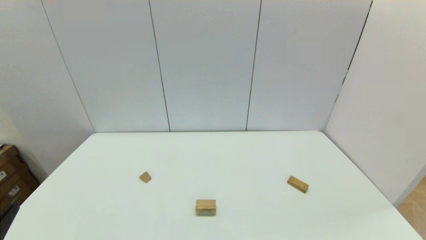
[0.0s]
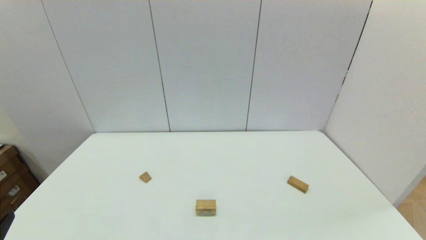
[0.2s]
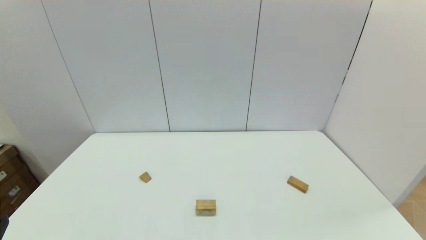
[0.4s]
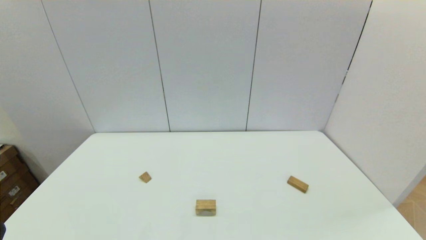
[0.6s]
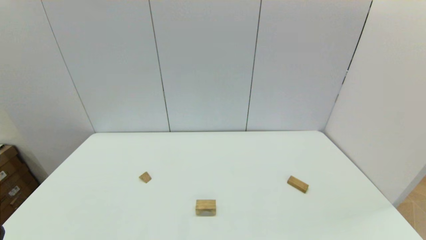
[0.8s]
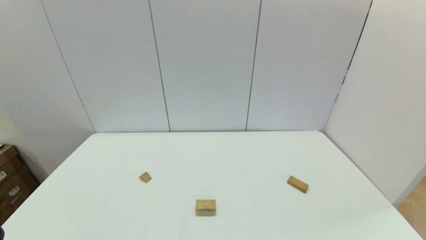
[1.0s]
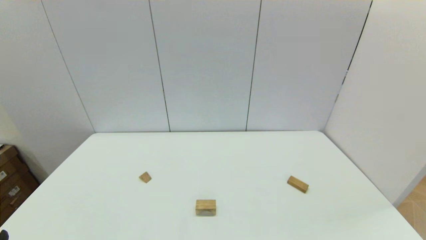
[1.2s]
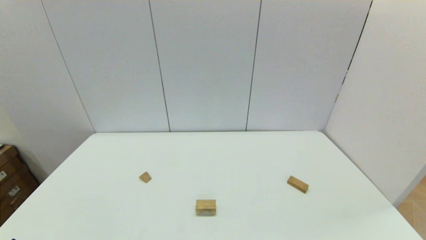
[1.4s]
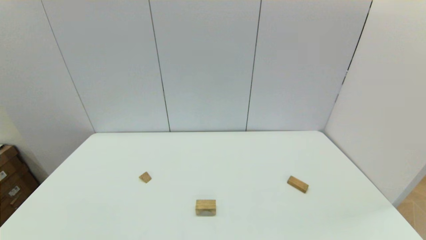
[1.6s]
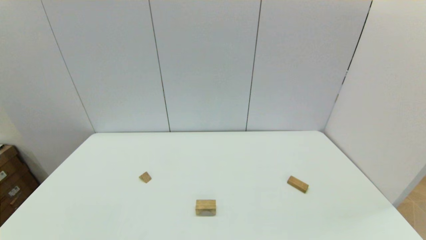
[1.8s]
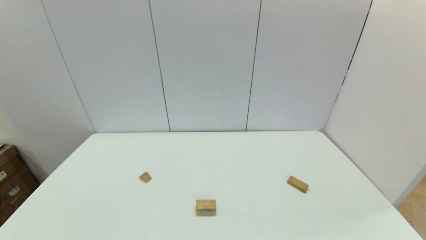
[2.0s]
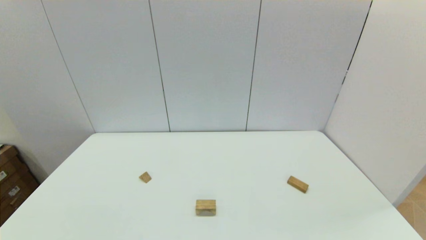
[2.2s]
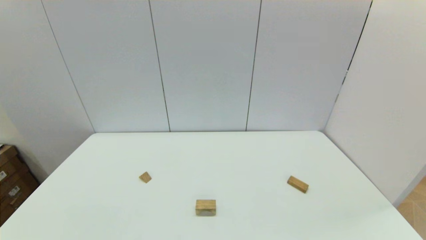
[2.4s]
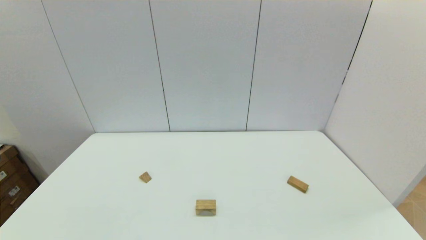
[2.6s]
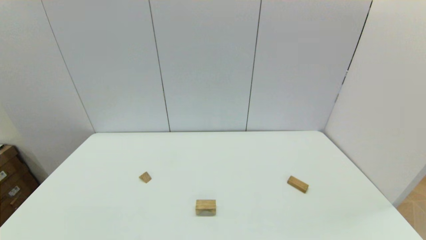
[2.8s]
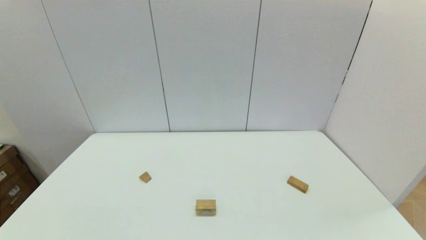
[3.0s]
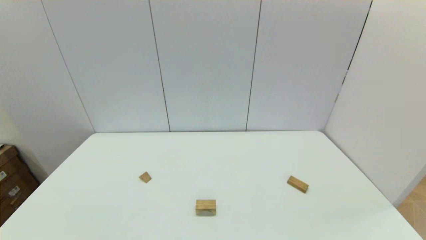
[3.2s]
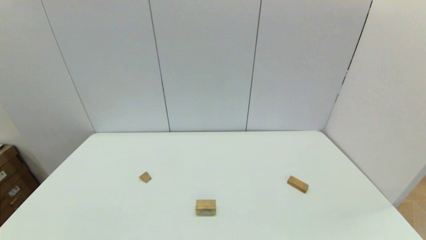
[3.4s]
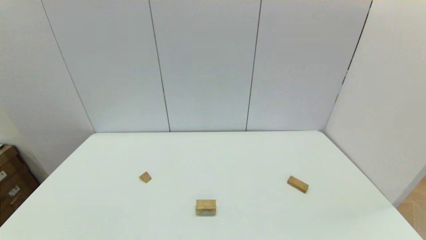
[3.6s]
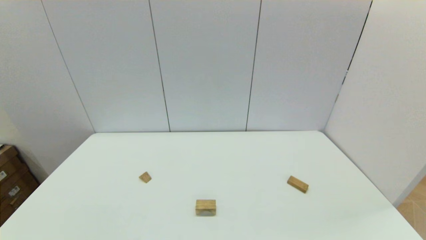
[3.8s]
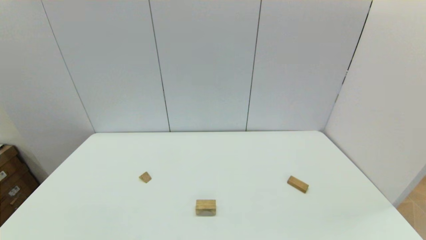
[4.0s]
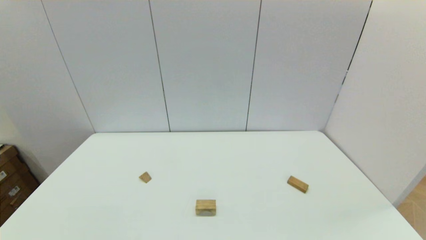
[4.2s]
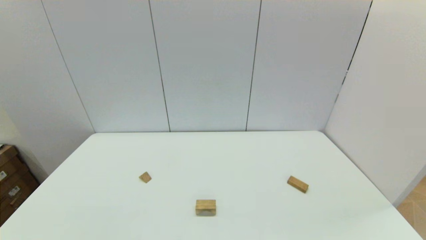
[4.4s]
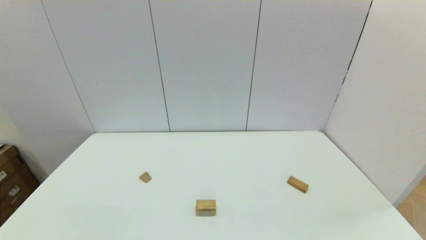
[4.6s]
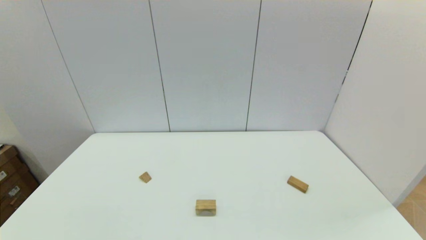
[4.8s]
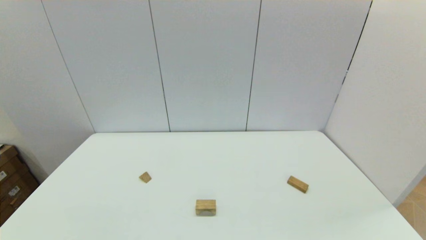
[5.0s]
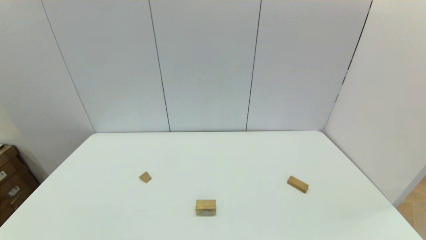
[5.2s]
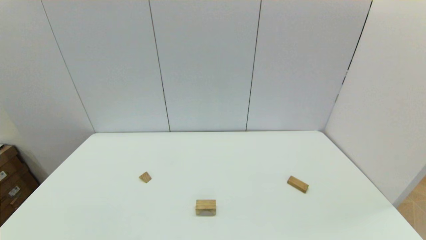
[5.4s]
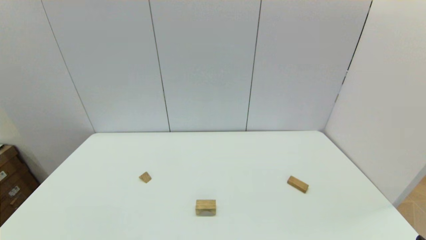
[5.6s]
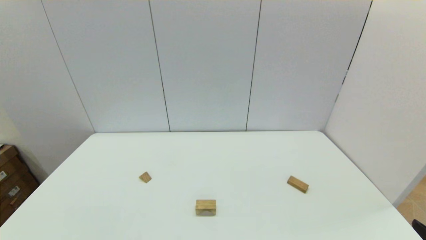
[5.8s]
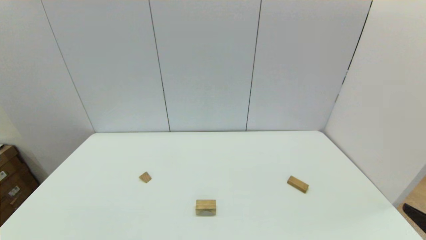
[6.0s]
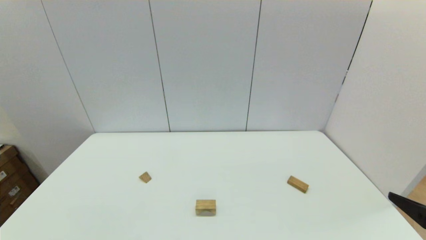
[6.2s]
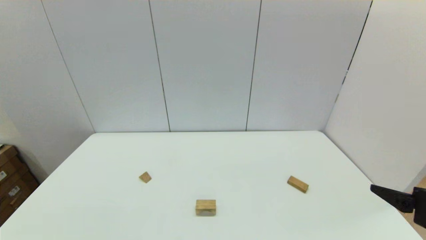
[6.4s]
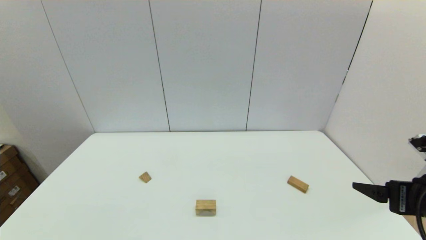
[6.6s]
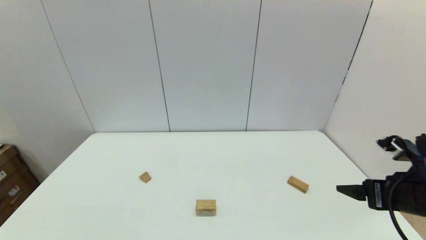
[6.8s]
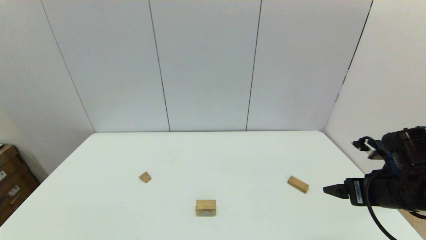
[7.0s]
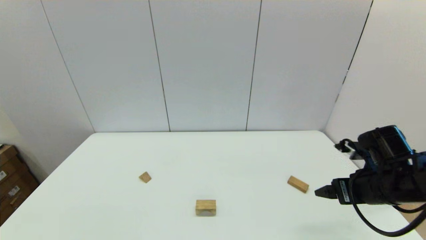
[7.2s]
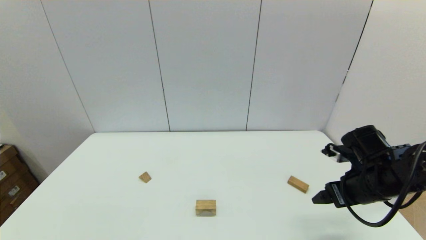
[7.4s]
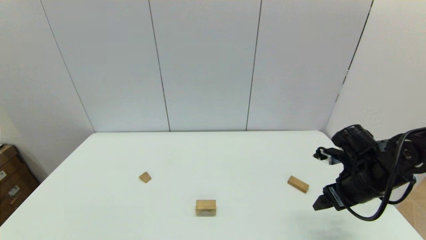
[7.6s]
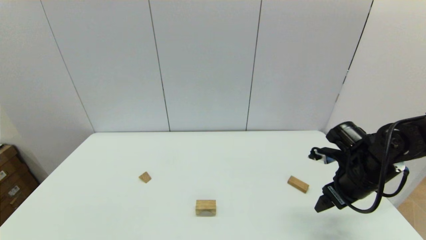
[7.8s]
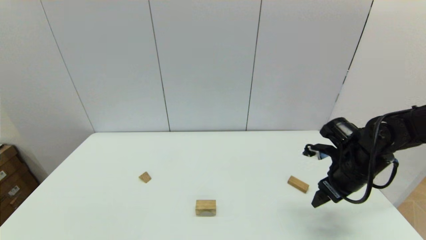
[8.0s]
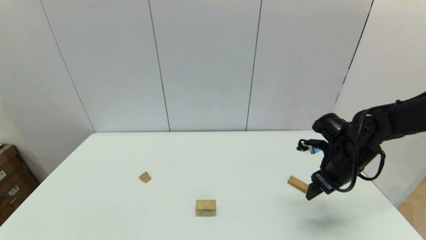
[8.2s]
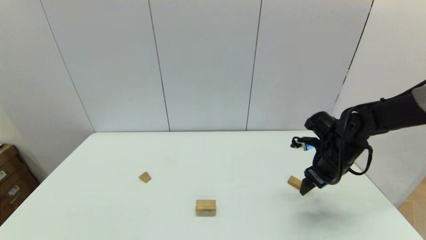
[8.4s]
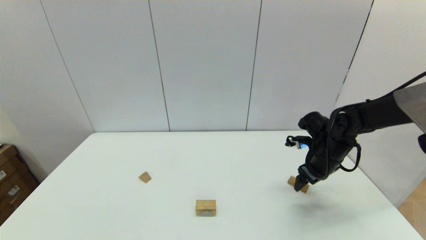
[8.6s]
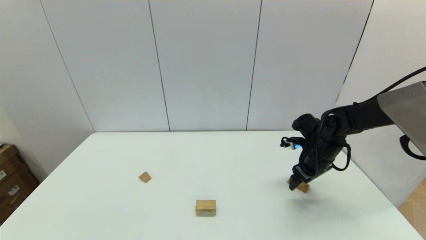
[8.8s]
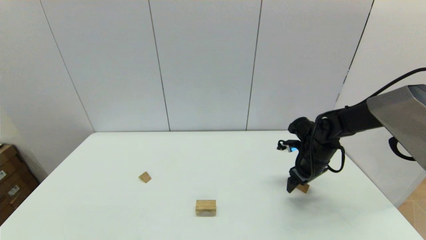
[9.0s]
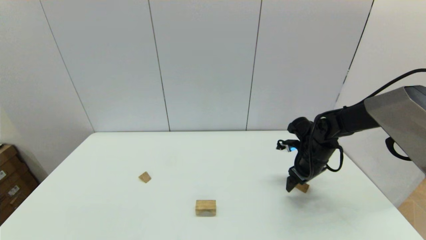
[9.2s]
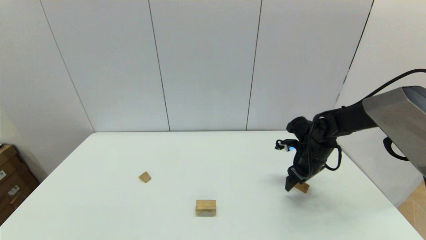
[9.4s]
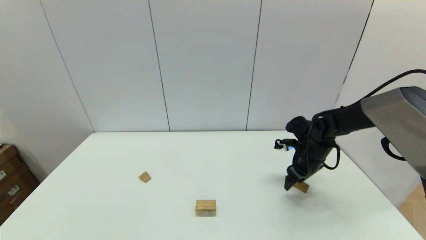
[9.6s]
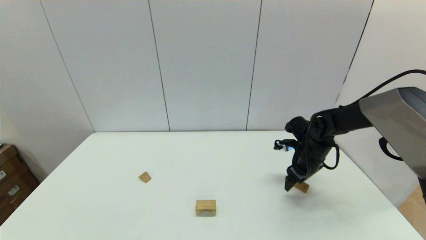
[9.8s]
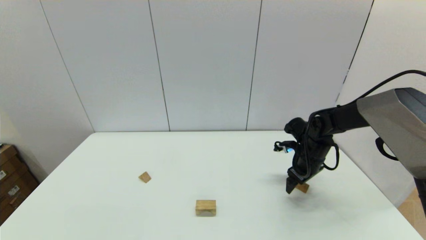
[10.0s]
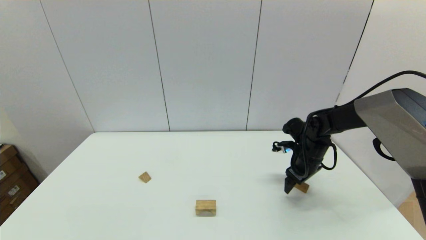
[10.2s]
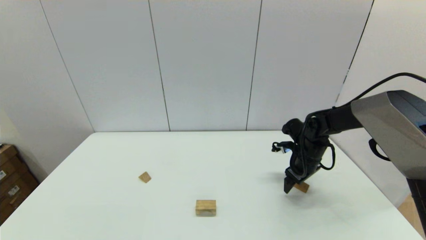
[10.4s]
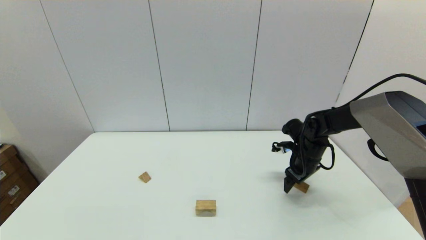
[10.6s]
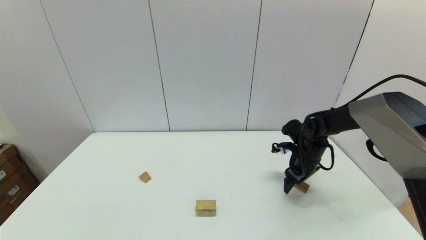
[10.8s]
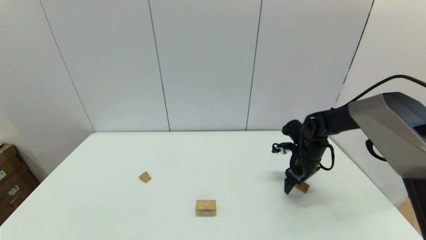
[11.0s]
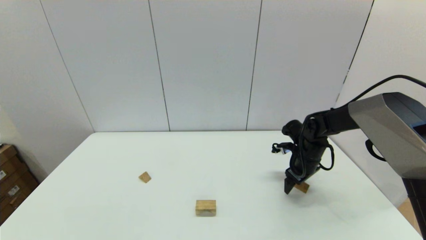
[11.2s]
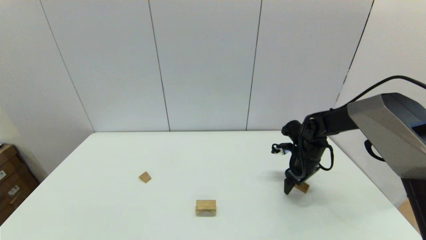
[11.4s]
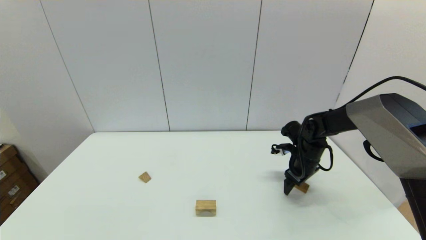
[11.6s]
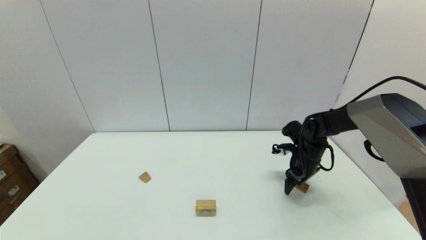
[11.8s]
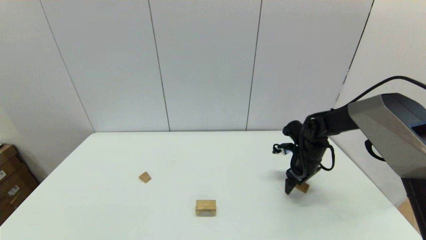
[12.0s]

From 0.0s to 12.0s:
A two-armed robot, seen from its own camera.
Task of the whole recording: place the arched building blocks in the center of the table, set up the rectangular building blocks, and then set up the triangular building blocks.
From 3.0s to 4.4s: Neither gripper changes place.
From 6.0s to 7.6s: The right gripper is displaced forward by approximately 20 cm.
From 7.6s to 9.0s: The right gripper is displaced forward by some 10 cm.
From 9.0s to 10.4s: The grippers stay close to where they were, moving slightly.
From 10.4s to 12.0s: Both grippers stay about where they are.

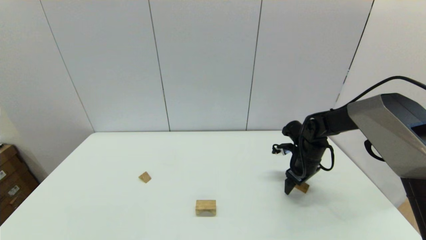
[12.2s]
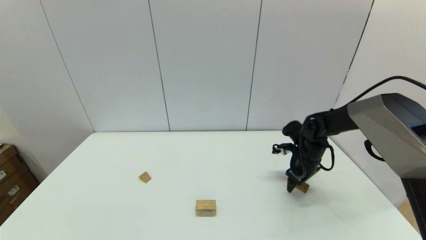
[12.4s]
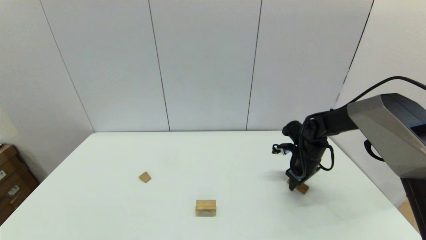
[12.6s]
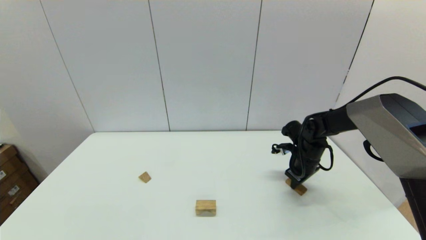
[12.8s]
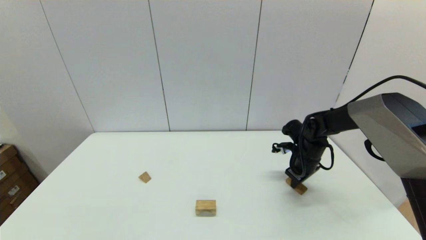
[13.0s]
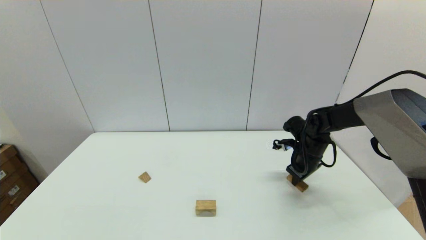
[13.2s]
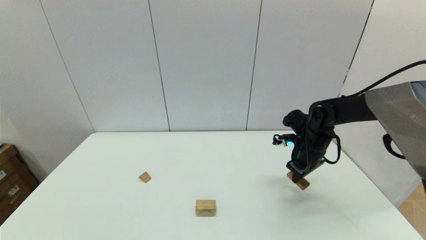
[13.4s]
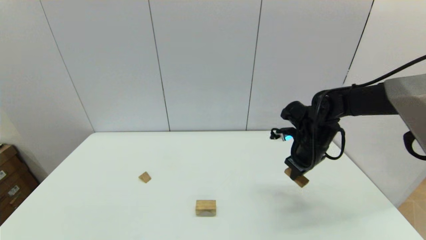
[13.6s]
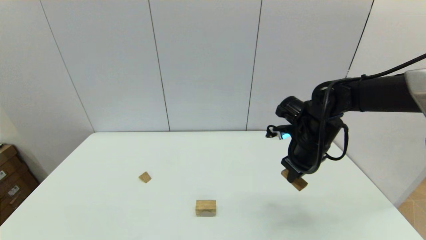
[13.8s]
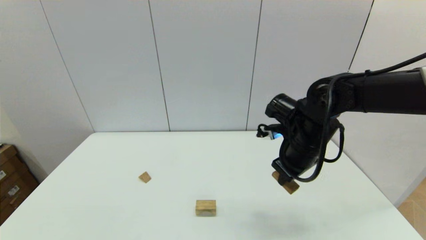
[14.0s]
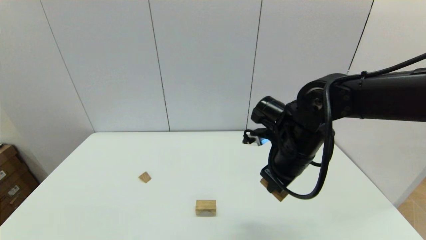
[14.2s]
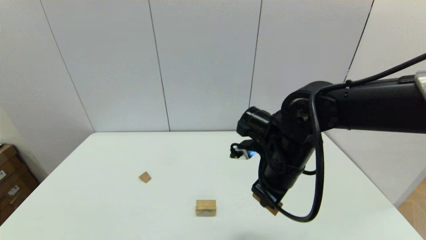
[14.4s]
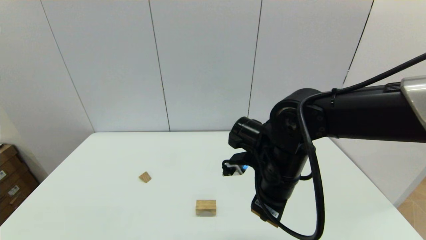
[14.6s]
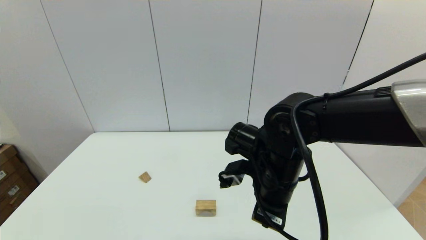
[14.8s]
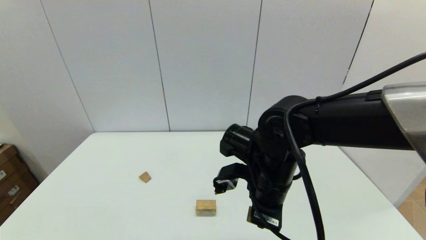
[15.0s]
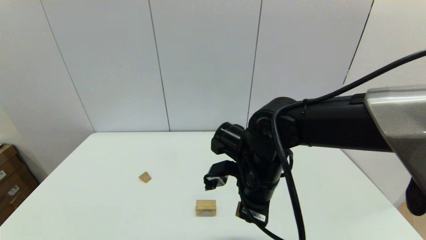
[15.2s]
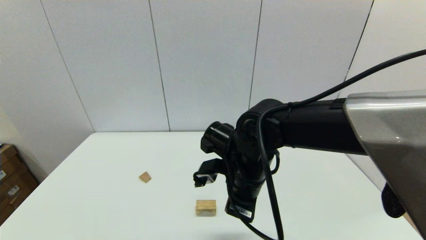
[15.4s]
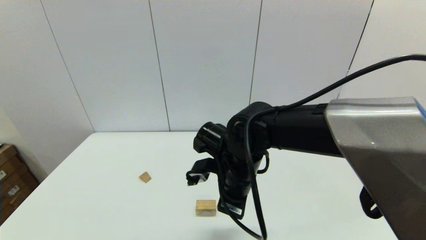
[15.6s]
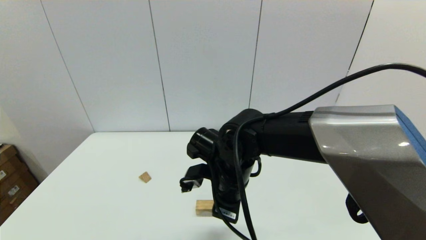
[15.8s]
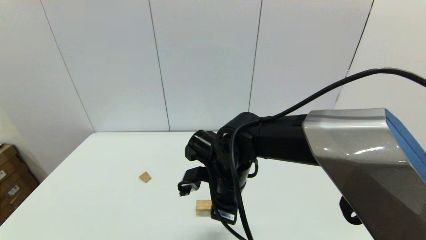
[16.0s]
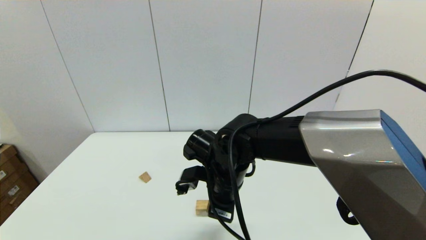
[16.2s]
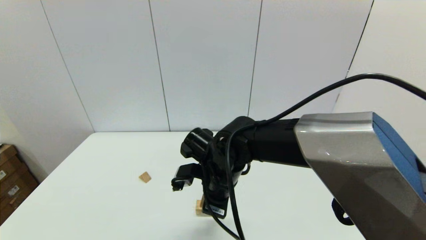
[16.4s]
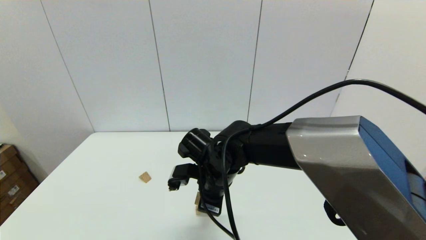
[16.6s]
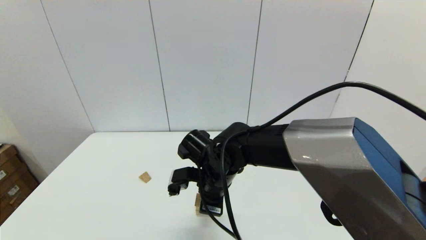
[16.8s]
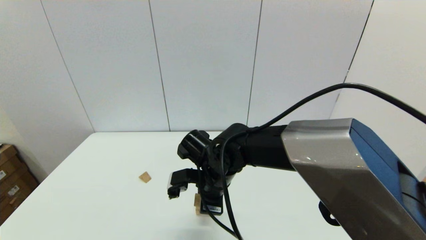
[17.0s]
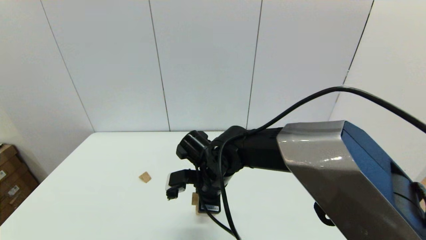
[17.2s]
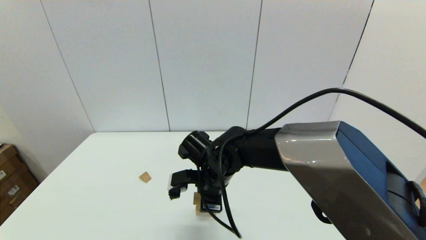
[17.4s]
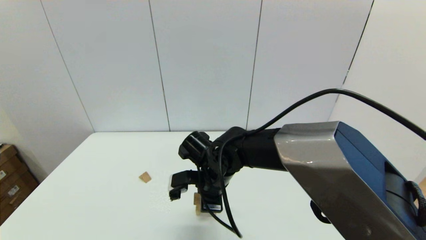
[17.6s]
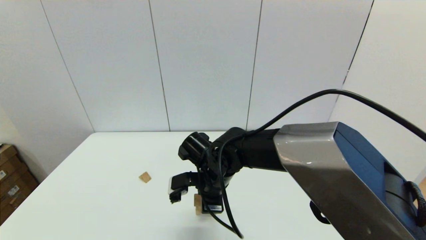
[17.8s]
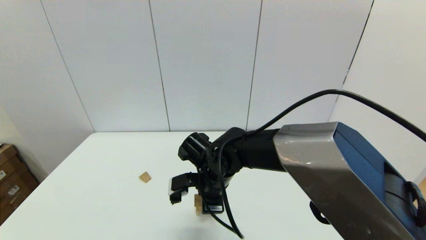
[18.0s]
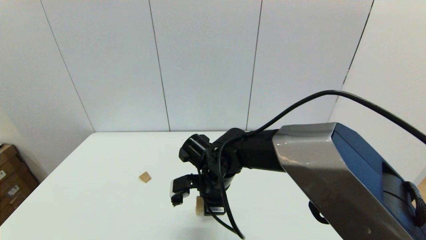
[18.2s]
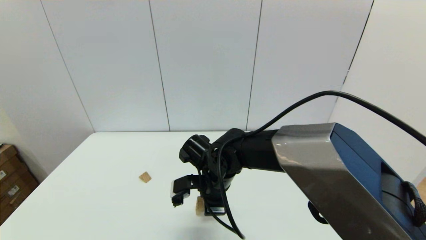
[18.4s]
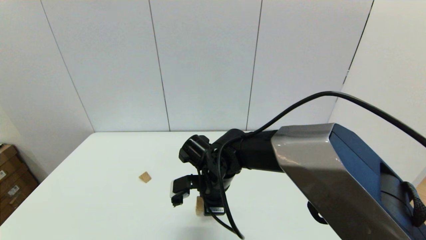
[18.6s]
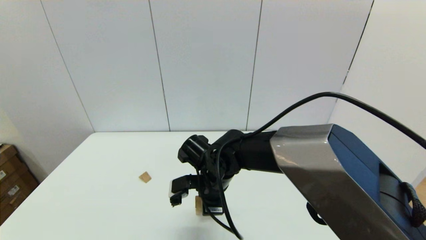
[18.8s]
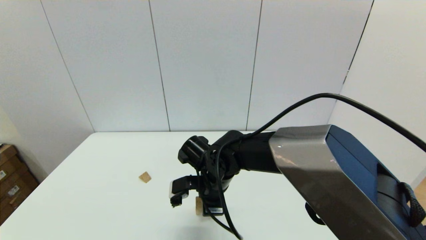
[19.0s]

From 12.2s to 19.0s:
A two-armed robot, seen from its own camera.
Task of the whole recording: place the arched building blocks in the center of the table, set up the rectangular building blocks, and then set up the triangular building blocks.
From 12.2s to 13.6s: The right gripper heads upward, covering roughly 10 cm, and closes its fingers.
From 13.6s to 15.0s: The right gripper travels to the left and backward by roughly 20 cm.
From 15.0s to 16.2s: The right gripper travels to the left by some 5 cm.
From 16.2s to 17.6s: There are only small adjustments of the grippers.
From 17.6s to 19.0s: Neither gripper changes place.
